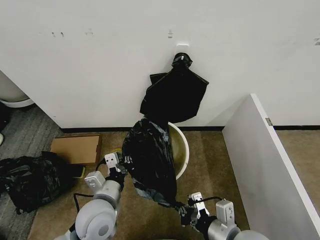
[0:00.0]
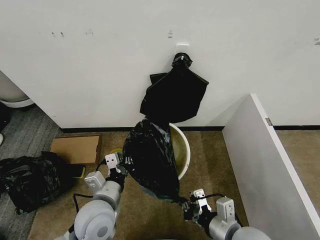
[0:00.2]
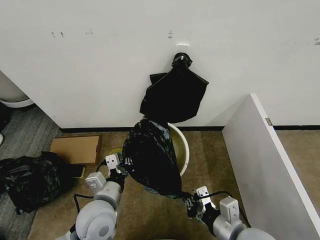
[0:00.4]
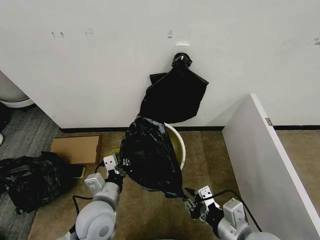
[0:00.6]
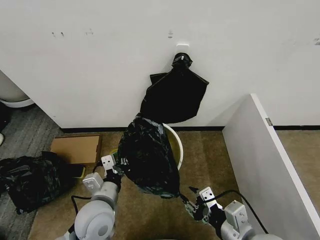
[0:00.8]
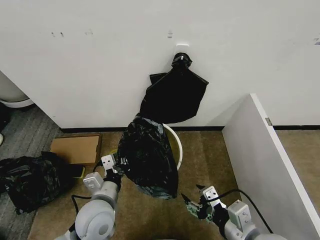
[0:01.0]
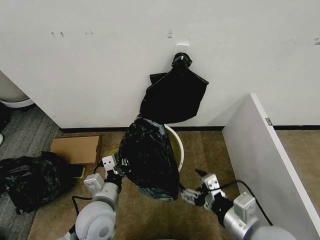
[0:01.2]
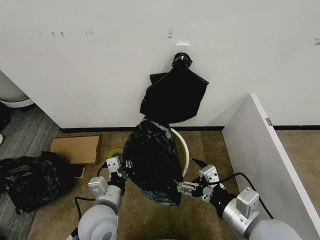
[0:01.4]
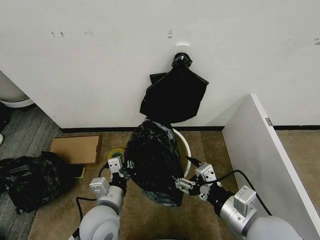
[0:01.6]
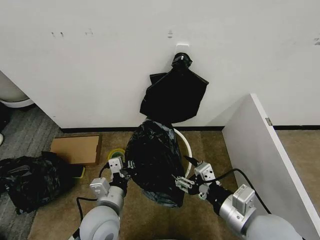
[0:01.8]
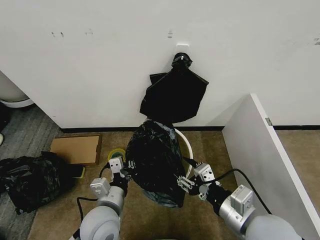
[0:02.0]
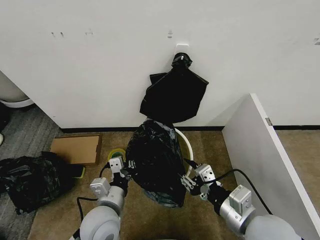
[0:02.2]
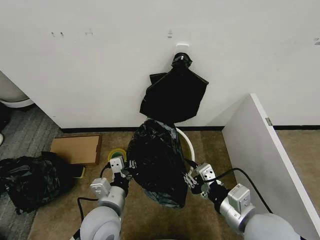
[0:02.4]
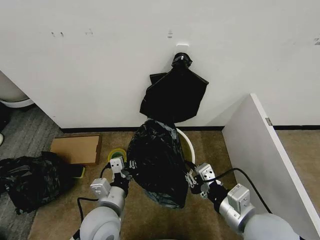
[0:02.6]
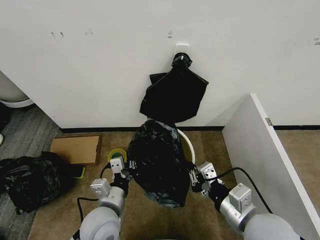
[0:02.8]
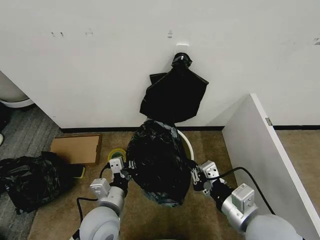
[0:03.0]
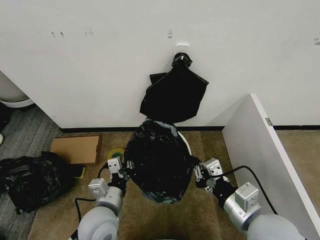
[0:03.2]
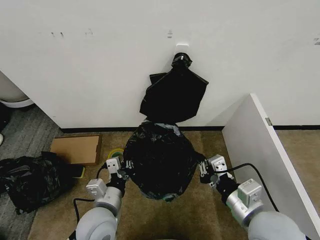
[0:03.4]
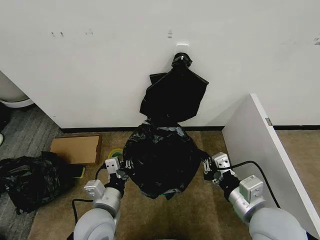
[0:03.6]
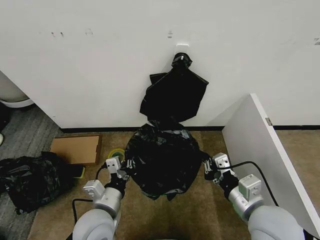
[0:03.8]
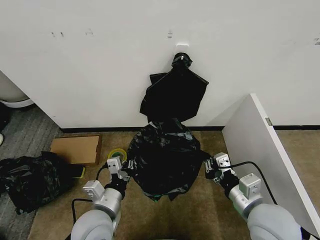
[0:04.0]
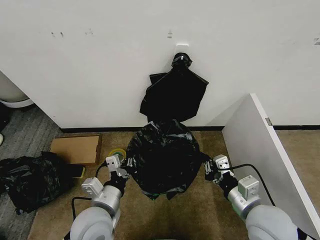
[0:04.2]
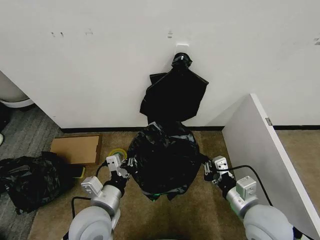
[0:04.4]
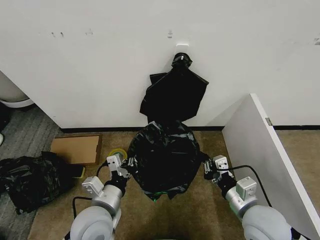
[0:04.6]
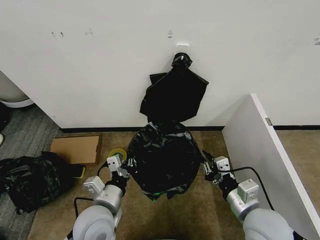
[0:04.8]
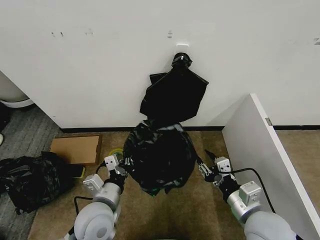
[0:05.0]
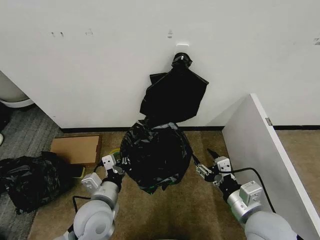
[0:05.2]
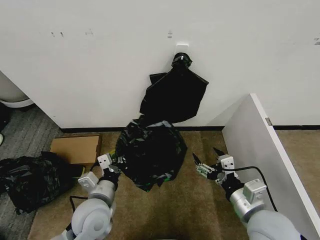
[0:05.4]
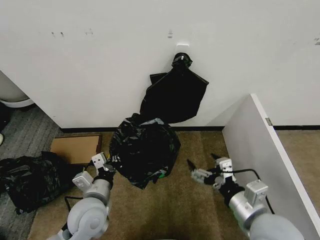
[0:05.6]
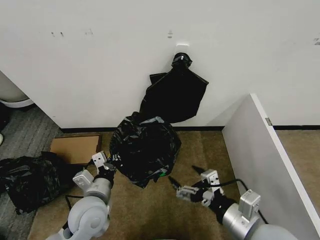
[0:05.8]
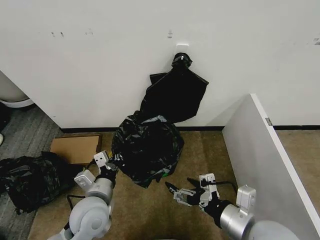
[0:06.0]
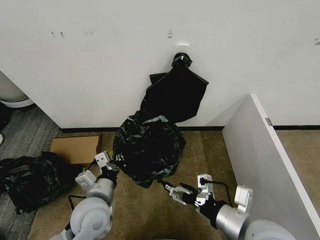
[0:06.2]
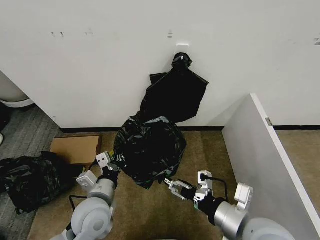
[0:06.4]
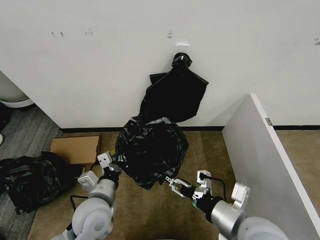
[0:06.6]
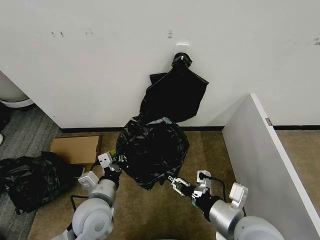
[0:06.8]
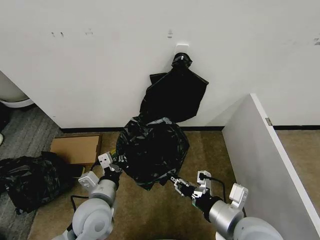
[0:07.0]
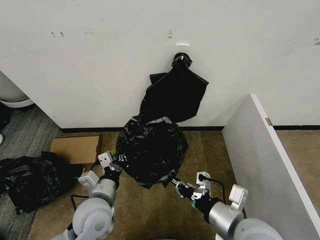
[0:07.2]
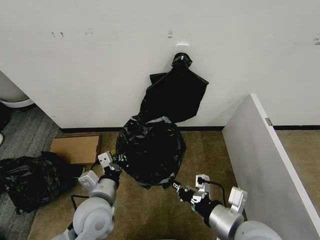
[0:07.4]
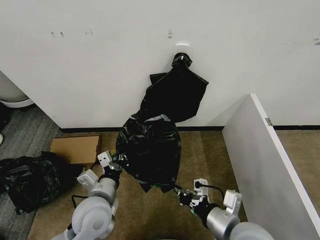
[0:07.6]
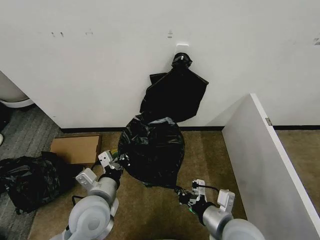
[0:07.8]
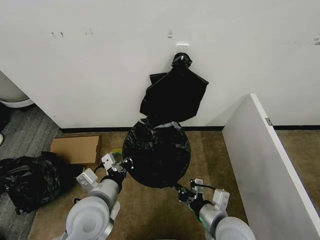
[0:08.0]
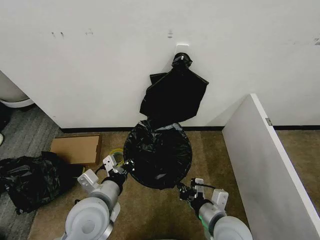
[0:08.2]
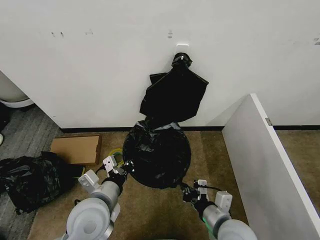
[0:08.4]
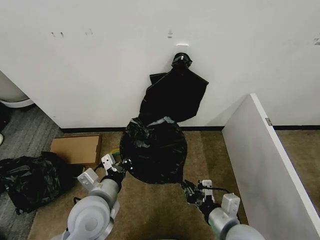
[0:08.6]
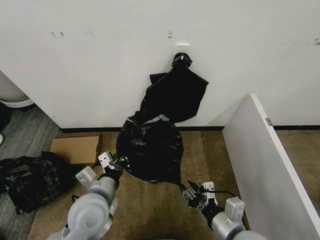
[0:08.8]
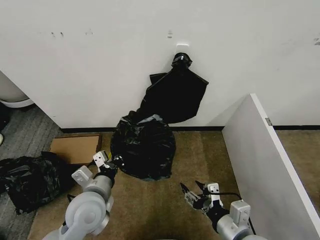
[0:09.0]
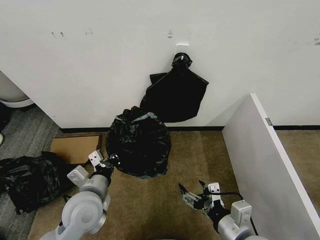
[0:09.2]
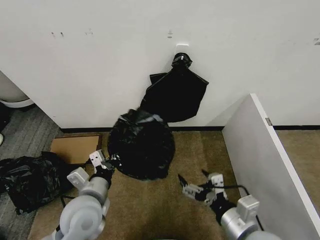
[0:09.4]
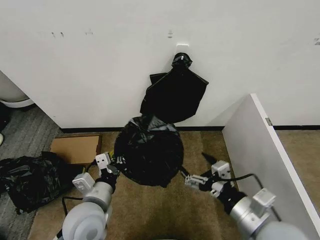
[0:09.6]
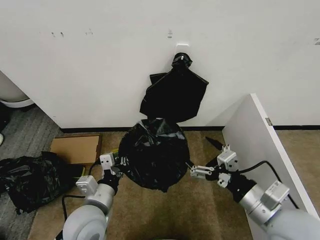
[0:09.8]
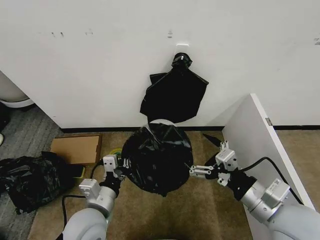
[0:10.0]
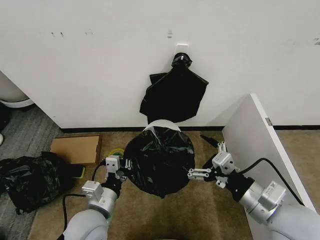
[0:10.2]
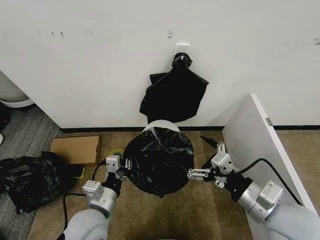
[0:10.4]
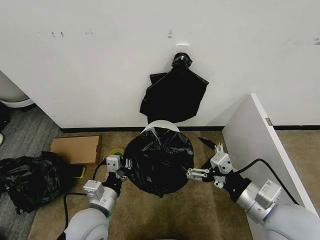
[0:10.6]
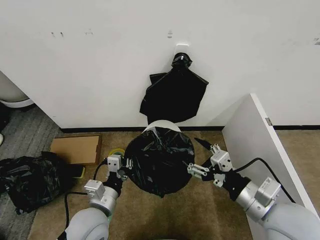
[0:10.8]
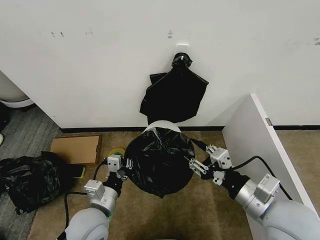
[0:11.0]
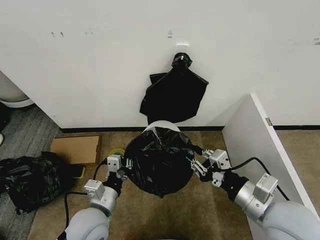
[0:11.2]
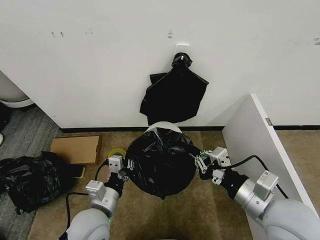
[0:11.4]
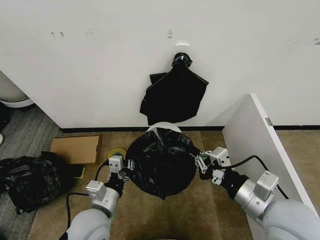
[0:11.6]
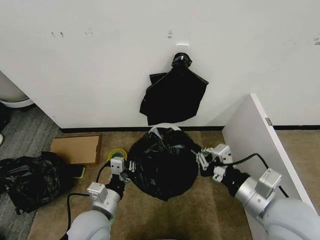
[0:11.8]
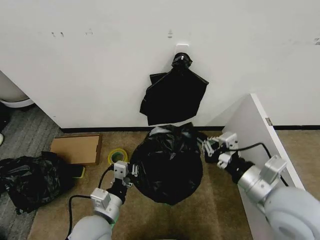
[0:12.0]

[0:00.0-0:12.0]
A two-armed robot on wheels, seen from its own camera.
Task of the whole recording: Place the garbage bag over the trash bin.
0:00.0 to 0:01.6: The right gripper heads upward, covering some 5 cm, and opens its fingers.
0:01.6 to 0:03.0: The right gripper closes its fingers.
0:03.0 to 0:04.4: The right gripper ends up approximately 5 cm from where it was.
0:04.4 to 0:06.0: The right gripper is displaced backward by about 5 cm, and opens up.
0:06.0 to 0:07.6: The right gripper closes.
0:07.6 to 0:09.0: The right gripper opens its fingers.
0:09.0 to 0:10.4: The right gripper moves upward and to the right, about 10 cm, and opens up.
0:10.4 to 0:12.0: The right gripper closes its fingers.

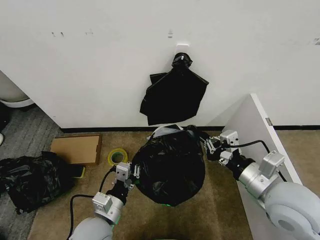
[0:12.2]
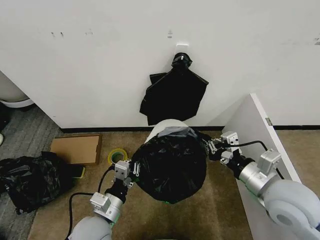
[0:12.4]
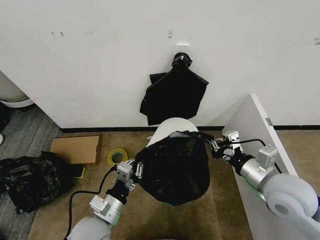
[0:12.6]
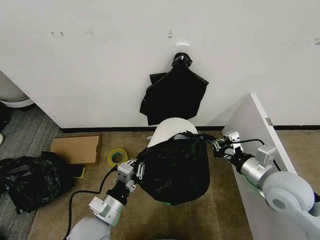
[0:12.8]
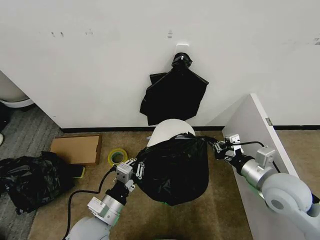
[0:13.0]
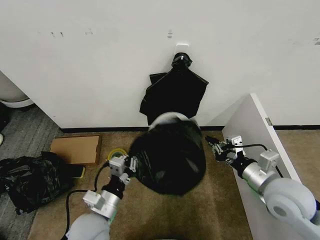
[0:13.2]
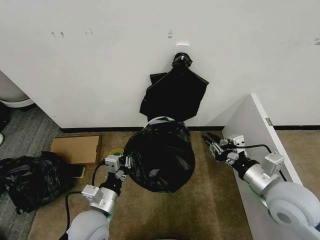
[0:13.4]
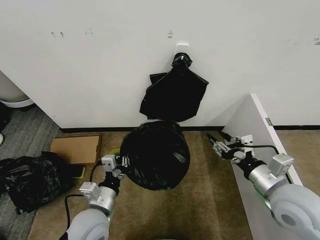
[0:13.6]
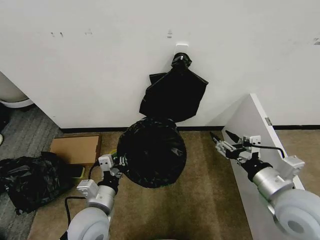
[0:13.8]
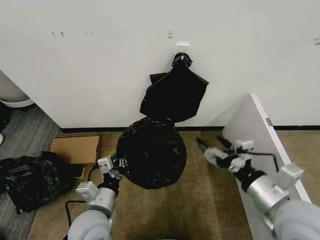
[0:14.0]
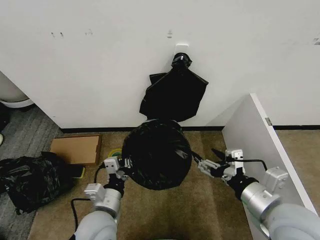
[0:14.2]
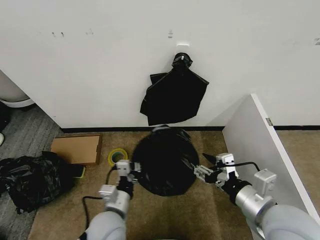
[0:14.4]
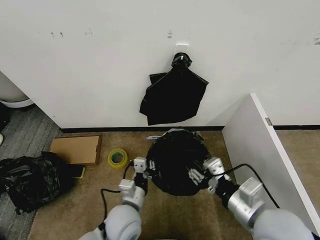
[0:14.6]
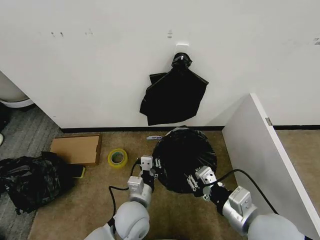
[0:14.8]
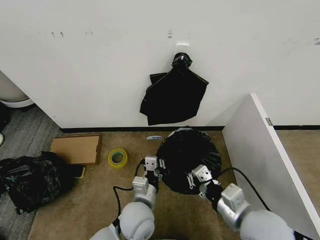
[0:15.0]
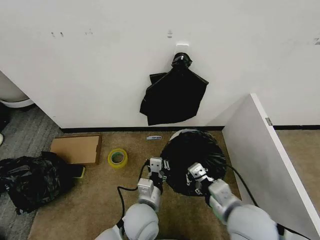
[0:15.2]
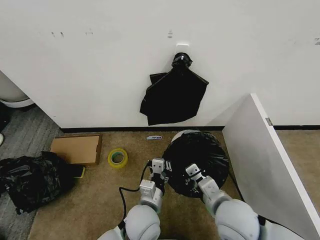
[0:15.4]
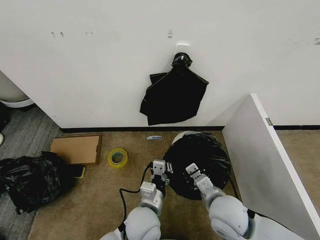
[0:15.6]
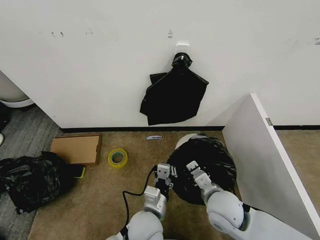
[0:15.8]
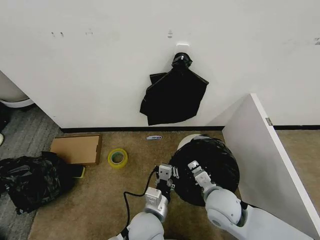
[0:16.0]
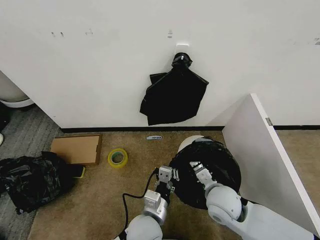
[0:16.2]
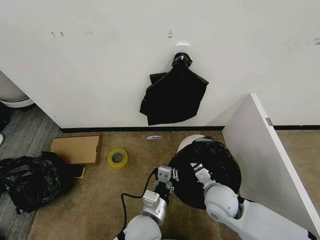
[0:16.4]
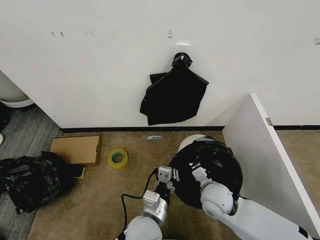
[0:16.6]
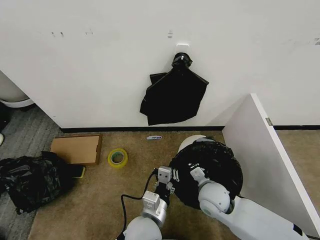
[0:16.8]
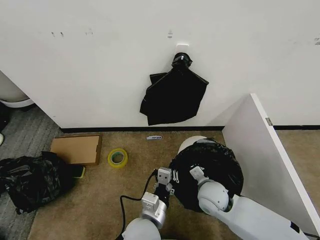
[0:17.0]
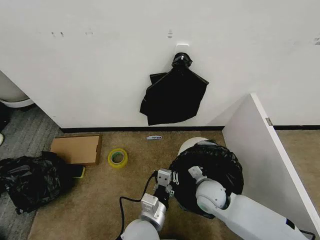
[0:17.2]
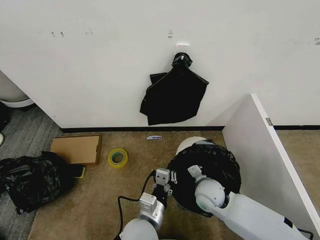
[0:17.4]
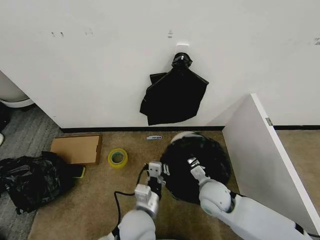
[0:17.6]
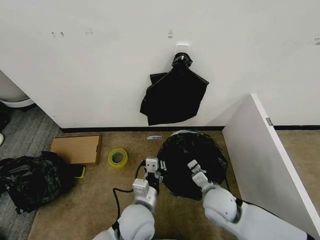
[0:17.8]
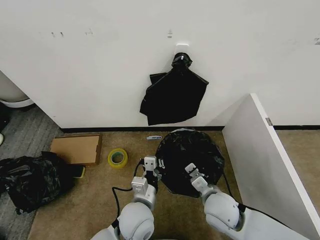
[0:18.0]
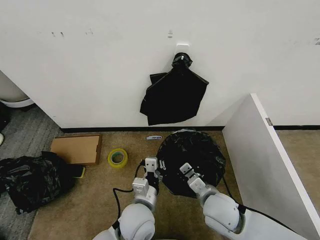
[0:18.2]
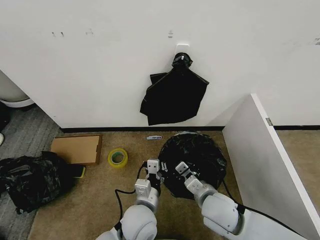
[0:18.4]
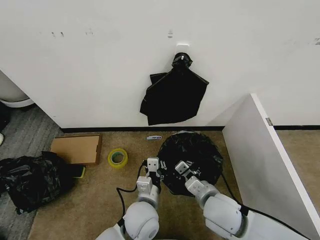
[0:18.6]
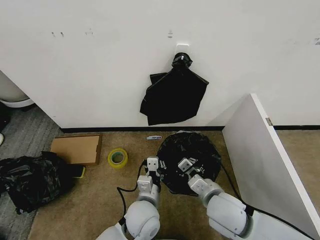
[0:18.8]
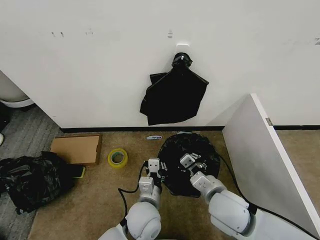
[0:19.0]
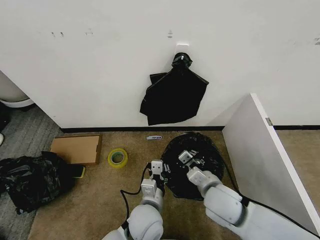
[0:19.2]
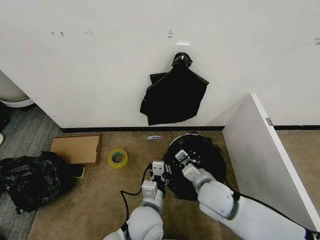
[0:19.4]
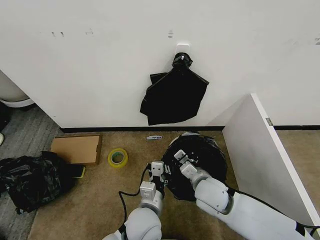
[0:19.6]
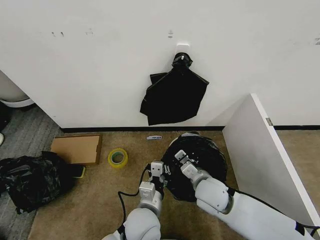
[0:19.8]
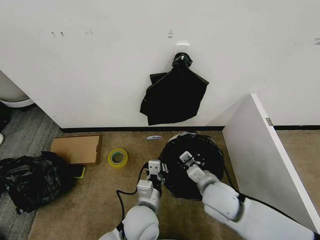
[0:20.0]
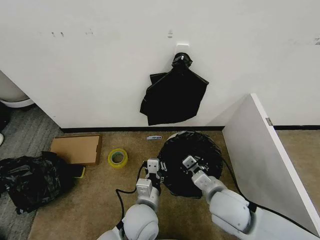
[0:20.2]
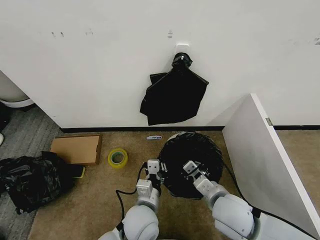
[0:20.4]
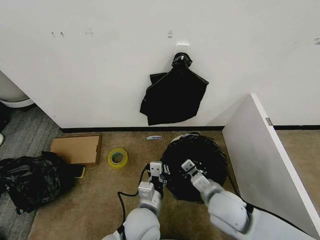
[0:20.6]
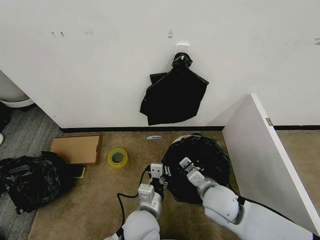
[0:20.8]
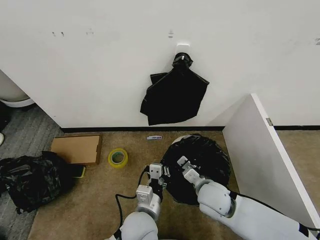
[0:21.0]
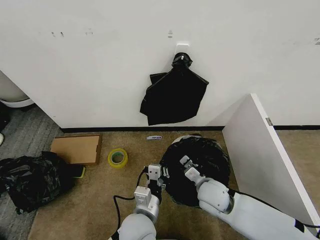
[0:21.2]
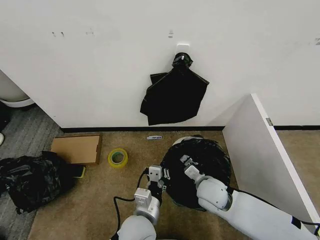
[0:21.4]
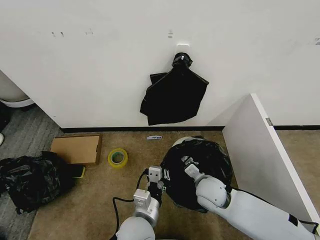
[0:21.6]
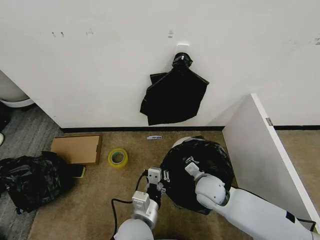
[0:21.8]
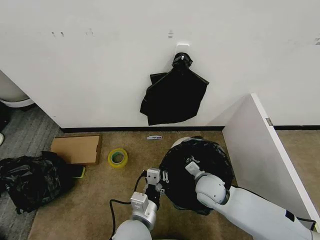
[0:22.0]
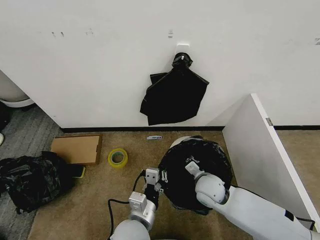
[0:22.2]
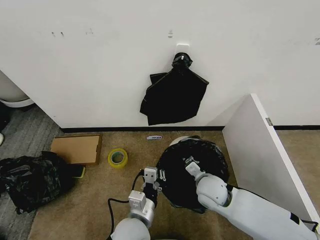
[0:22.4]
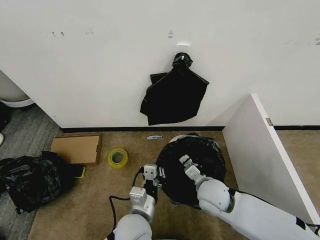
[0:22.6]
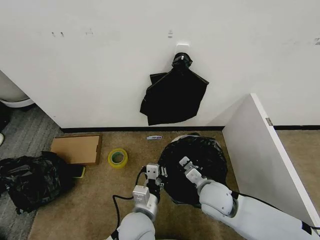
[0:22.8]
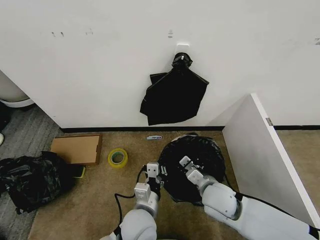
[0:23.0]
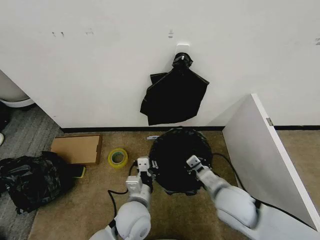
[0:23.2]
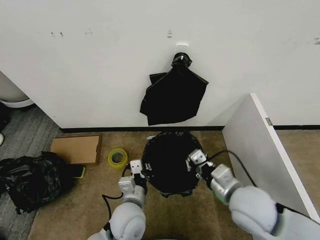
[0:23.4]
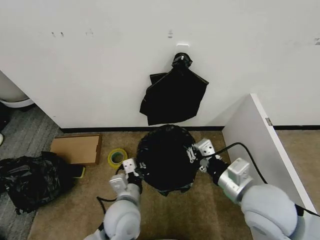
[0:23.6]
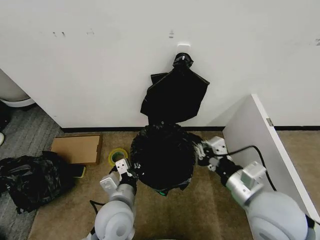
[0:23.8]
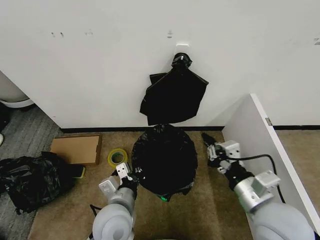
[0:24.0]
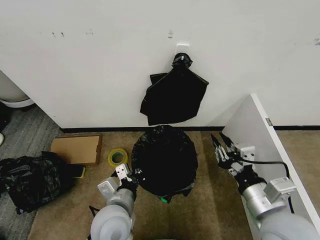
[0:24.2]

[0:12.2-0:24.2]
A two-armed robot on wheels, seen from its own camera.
Task of the whole recording: Place the garbage bag over the trash bin.
0:12.2 to 0:13.8: The right gripper opens.
0:13.8 to 0:15.2: The left gripper shifts some 15 cm to the right; the right gripper is displaced to the left by about 10 cm, and closes up.
0:15.2 to 0:16.6: The right gripper heads forward and downward, covering about 15 cm.
0:16.6 to 0:18.2: The grippers stay close to where they were, moving slightly.
0:21.2 to 0:22.6: There are only small adjustments of the grippers.
0:22.6 to 0:24.2: The right gripper heads backward, upward and to the right, covering some 20 cm. Meanwhile the left gripper goes roughly 5 cm to the left.
